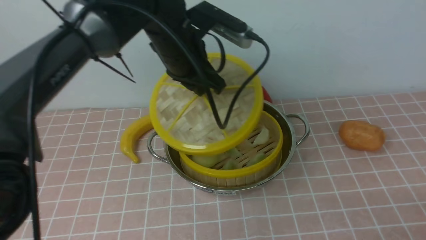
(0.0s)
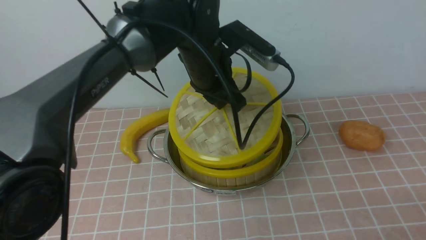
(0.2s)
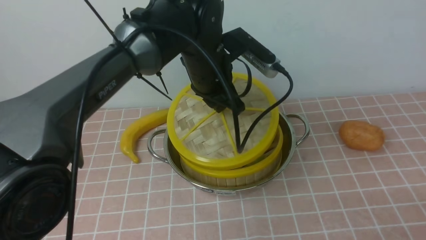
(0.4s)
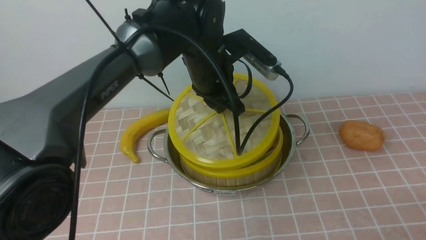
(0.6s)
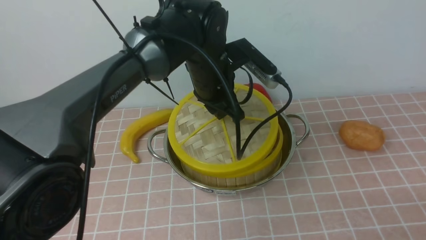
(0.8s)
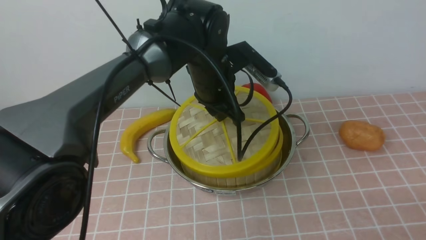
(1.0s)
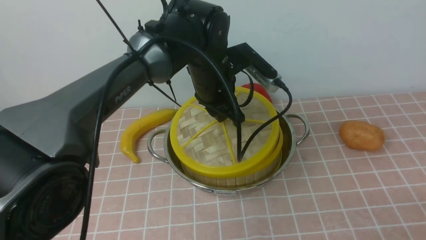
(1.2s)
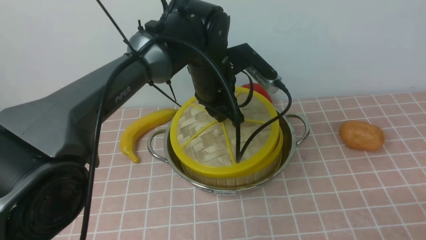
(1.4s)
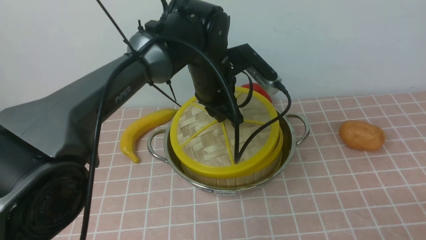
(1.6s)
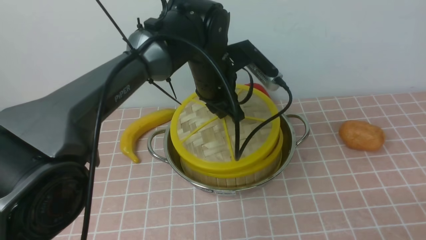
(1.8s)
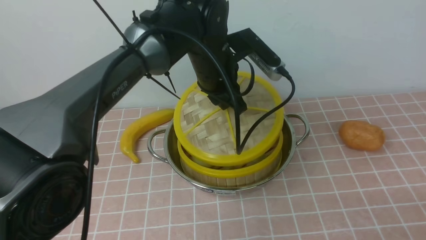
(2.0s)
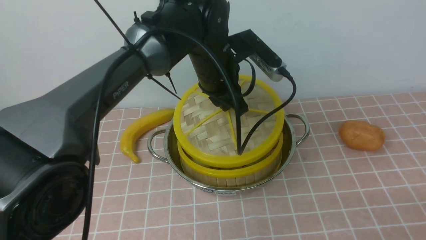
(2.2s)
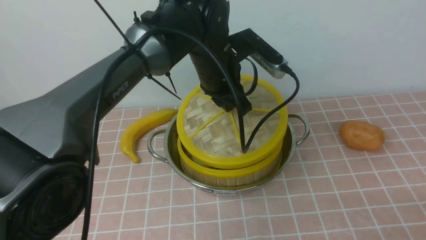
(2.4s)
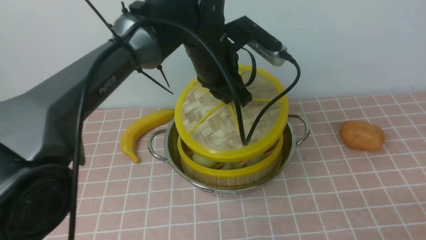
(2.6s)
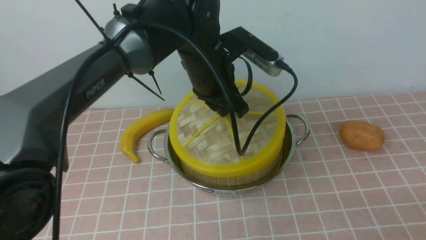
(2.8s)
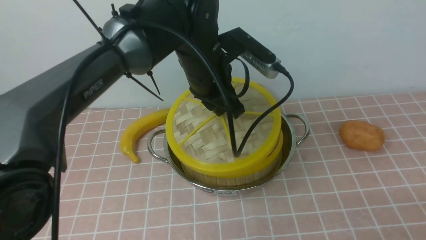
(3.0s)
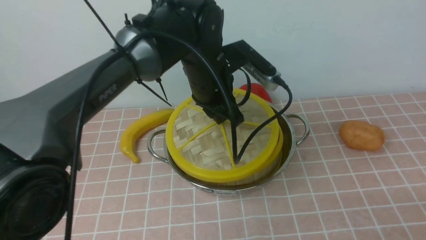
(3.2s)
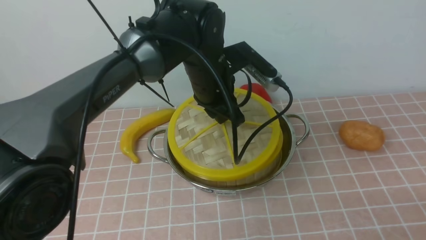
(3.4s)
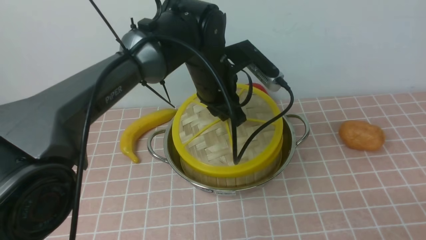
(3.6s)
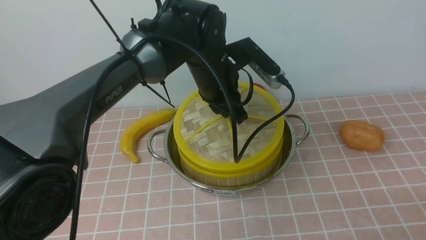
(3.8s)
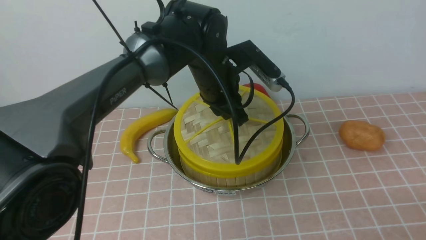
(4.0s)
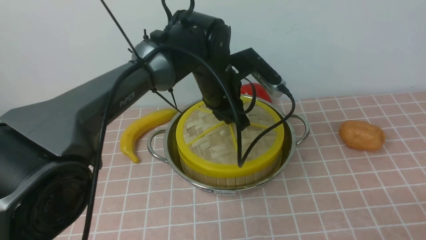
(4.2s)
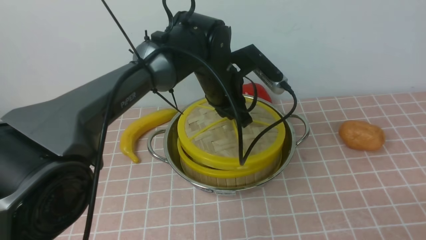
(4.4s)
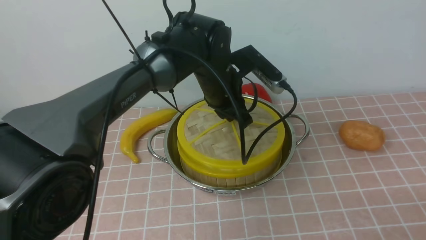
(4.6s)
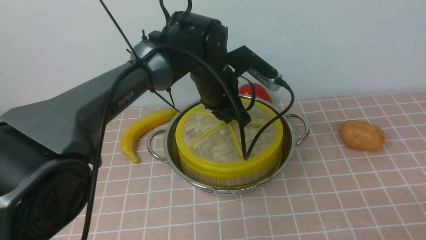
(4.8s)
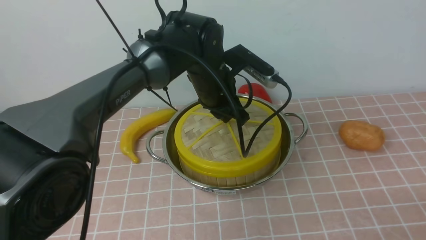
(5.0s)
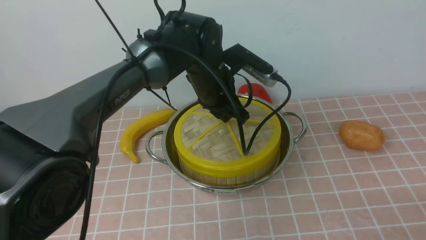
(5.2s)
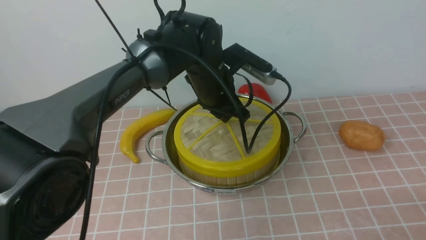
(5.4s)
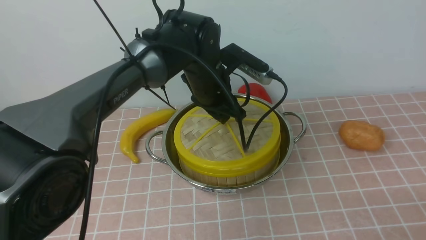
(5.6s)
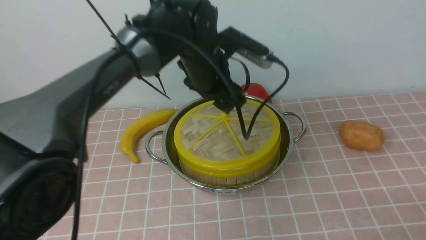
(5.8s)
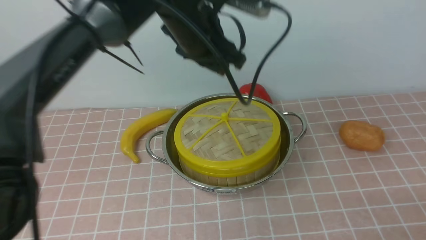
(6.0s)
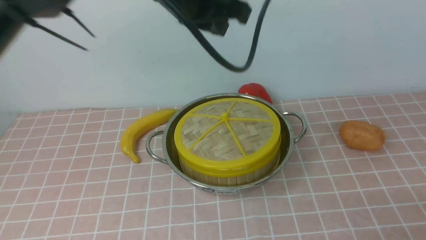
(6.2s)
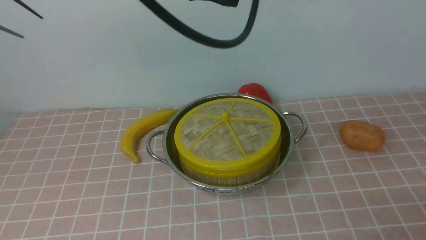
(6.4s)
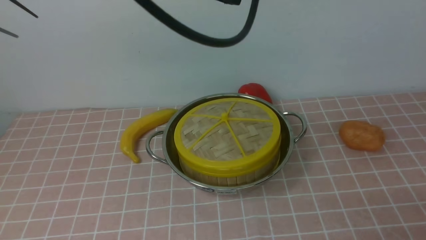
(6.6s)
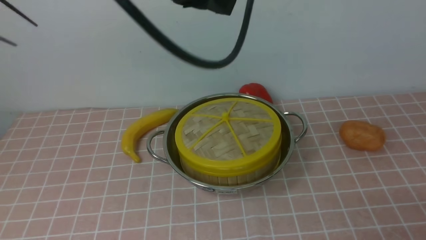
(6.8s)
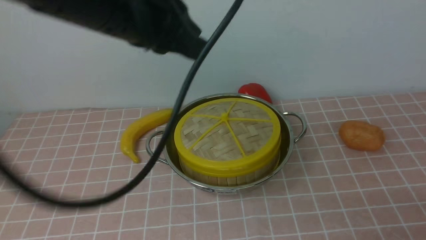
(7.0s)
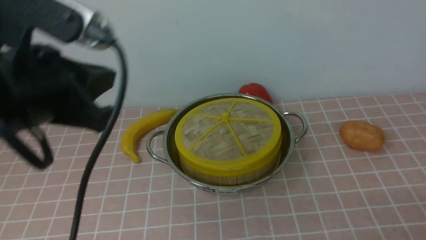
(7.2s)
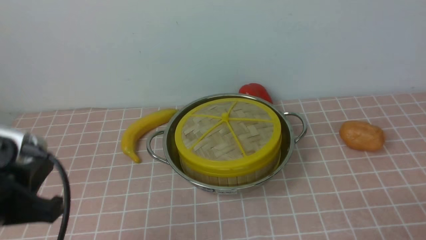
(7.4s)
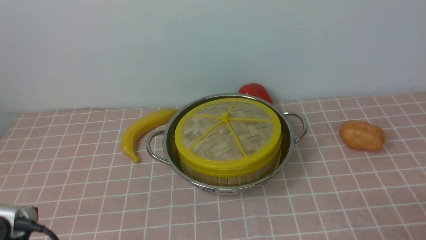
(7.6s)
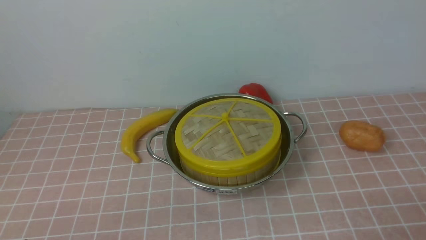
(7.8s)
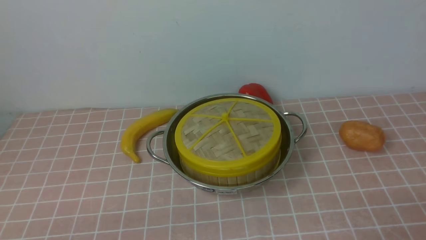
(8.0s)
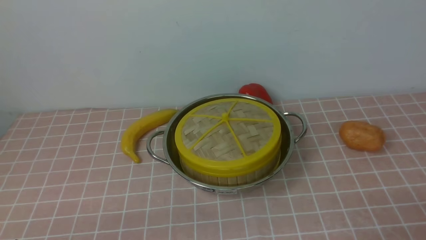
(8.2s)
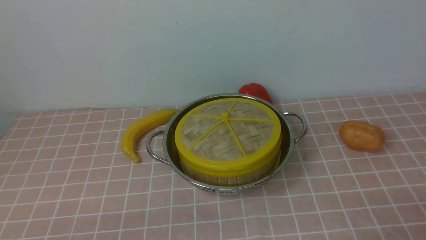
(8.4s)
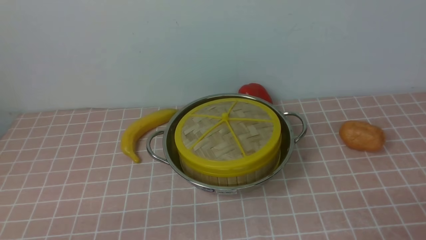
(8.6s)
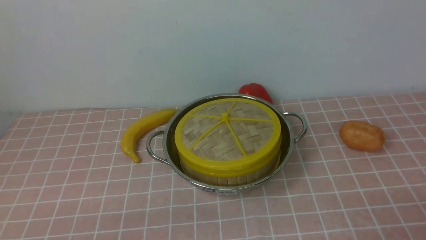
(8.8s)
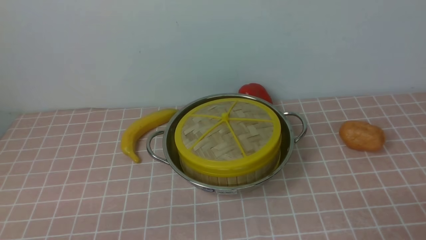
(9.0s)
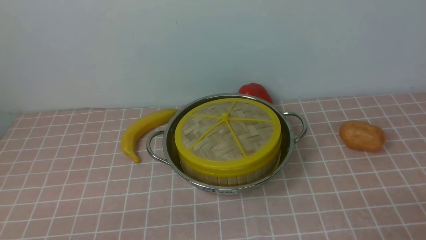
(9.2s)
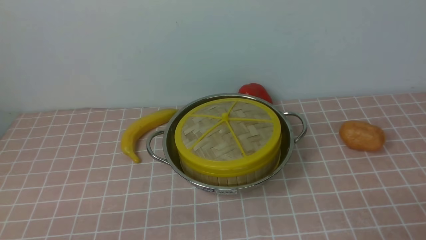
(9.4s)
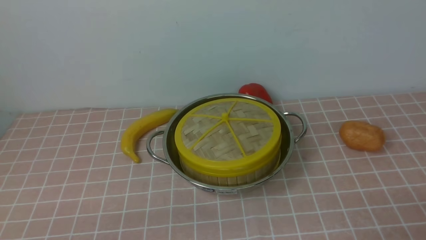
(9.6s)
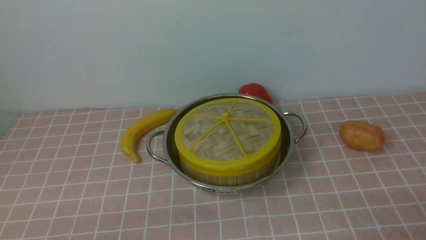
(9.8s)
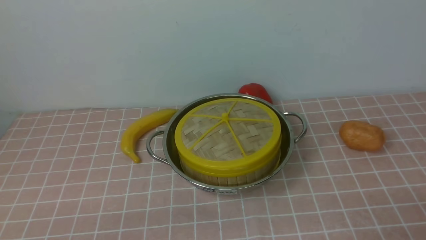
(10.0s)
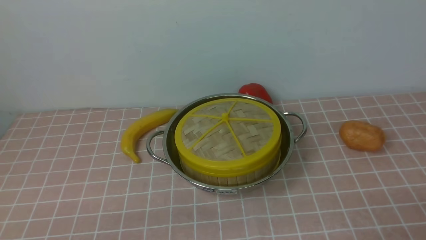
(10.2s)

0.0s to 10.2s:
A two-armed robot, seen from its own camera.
Task of the whole recording: place the steamer in the pot on the pink tablecloth, and put the lid on the steamer.
Step, 0.0s to 5.8s: use the left arm to place the steamer lid on the steamer.
0.0s to 1.4s: The left gripper moves downward, some 5 cm.
4.4s to 5.8s: The left gripper travels upward by approximately 5 cm, and opens up.
5.8s to 7.2s: The left gripper goes approximately 25 cm backward and to the left, and closes up.
7.2s to 8.8s: The left gripper is displaced downward and backward by approximately 25 cm, and opens.
8.8s to 10.2s: Both grippers stay put.
